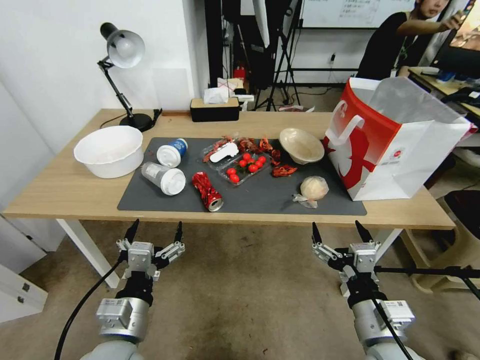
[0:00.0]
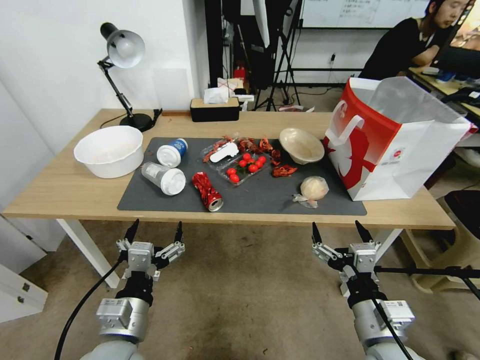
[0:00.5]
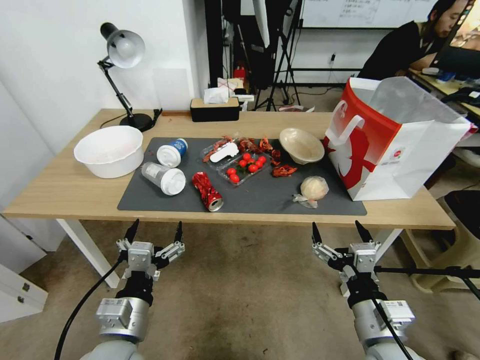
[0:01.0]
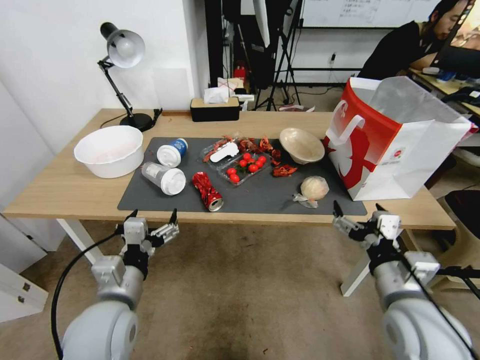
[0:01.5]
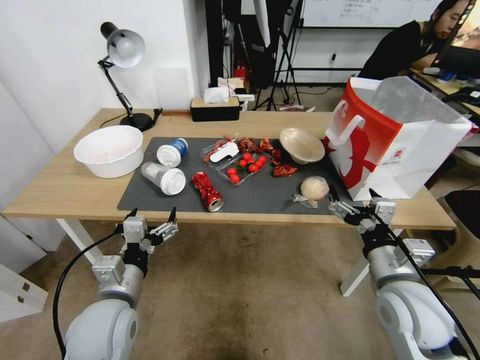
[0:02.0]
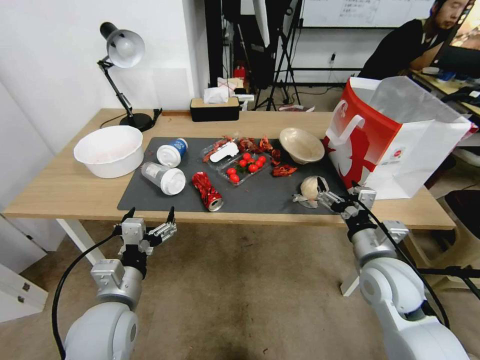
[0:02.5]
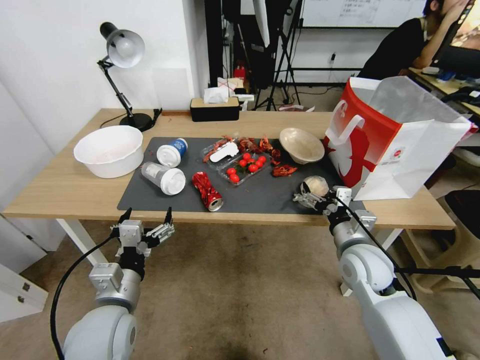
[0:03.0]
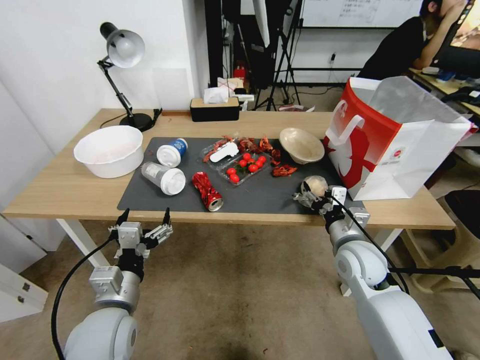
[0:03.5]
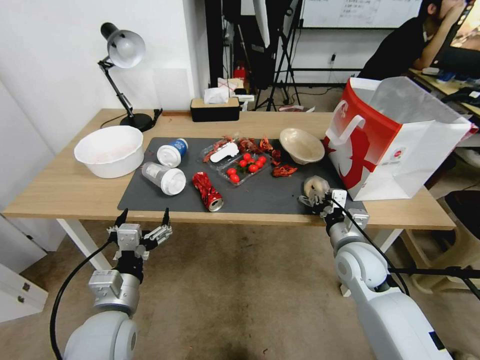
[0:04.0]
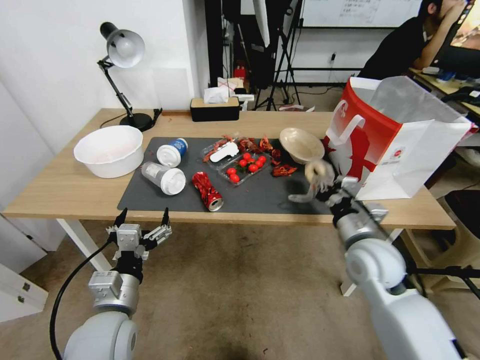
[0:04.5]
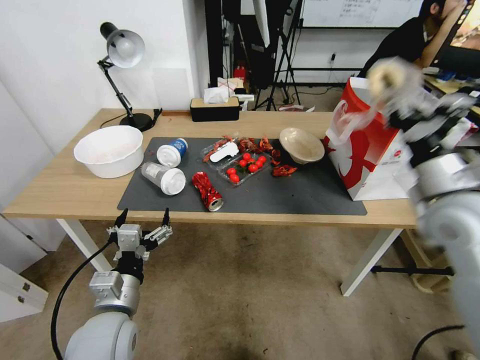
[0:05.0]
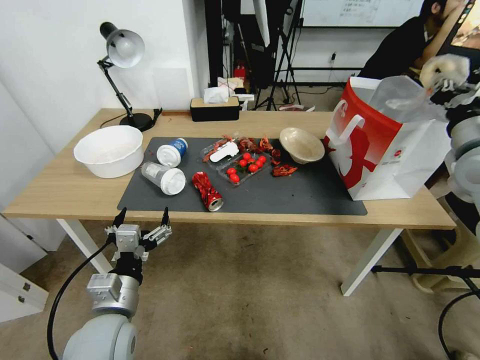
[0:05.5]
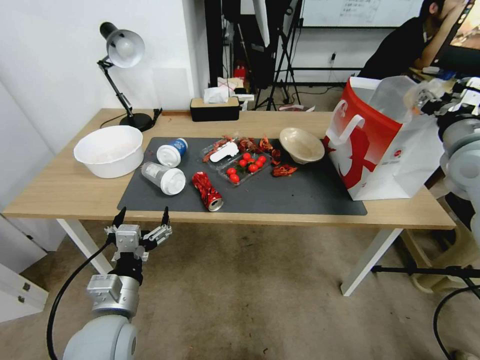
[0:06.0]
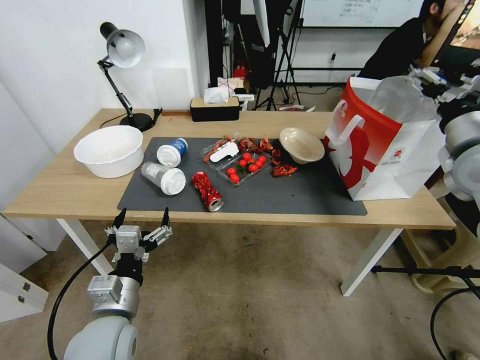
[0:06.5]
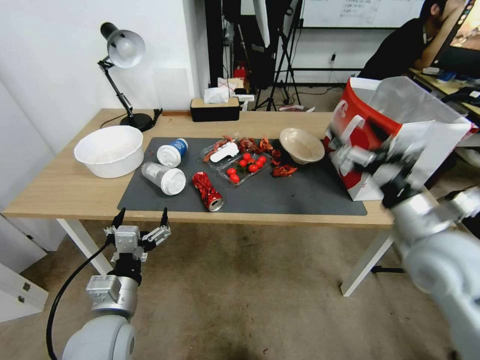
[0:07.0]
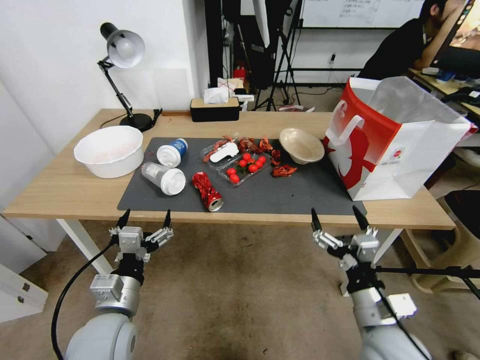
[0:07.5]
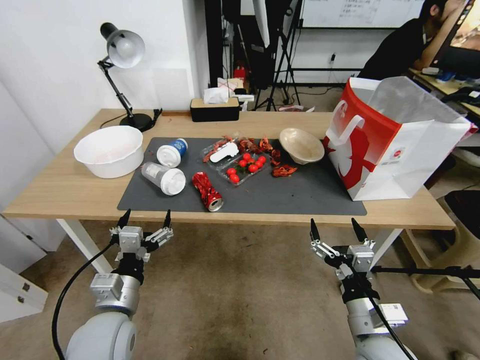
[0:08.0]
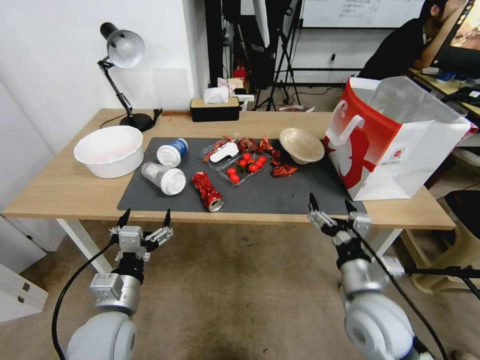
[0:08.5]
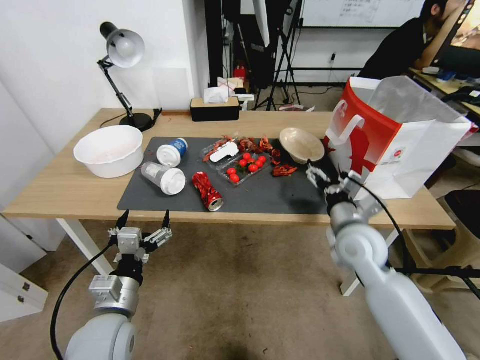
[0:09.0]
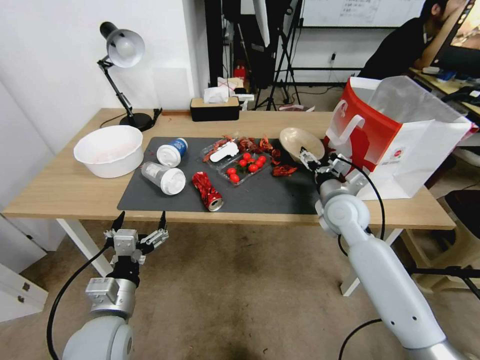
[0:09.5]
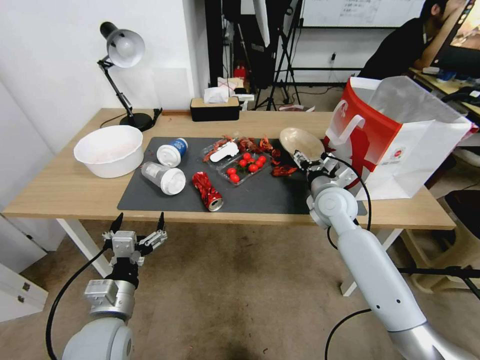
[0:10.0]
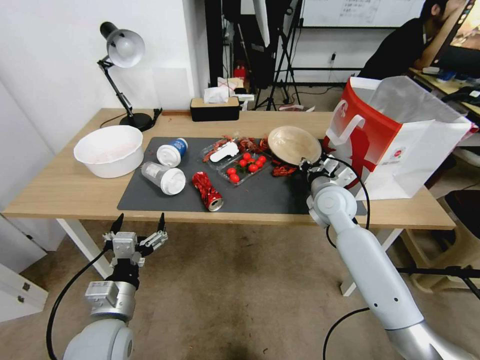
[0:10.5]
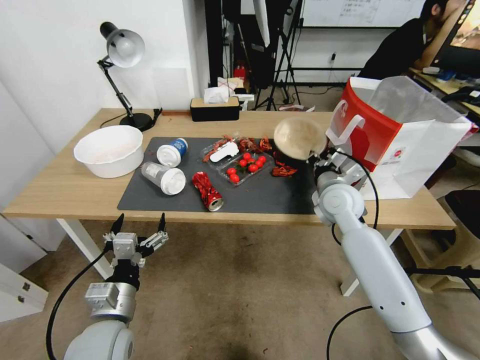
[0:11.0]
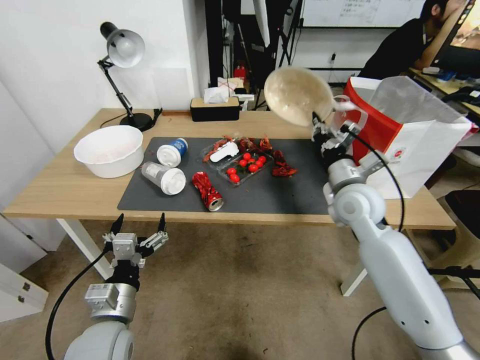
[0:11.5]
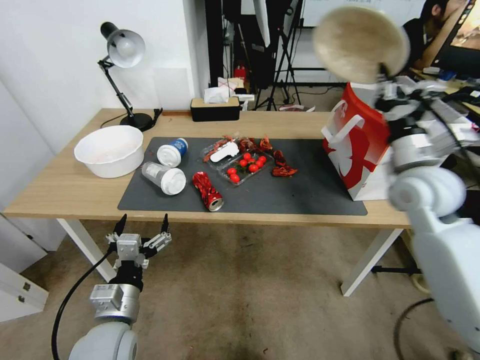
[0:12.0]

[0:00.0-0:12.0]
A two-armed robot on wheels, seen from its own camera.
0:02.0 to 0:04.0: The right gripper travels forward and downward by roughly 15 cm, and closes its fingers.
0:04.0 to 0:06.0: The right gripper shifts approximately 30 cm upward and to the right.
0:06.0 to 0:08.0: The right gripper travels downward, backward and to the left by approximately 40 cm, and opens up.
0:08.0 to 0:10.0: The right gripper moves forward, about 30 cm.
0:10.0 to 0:12.0: The right gripper heads upward, to the right and backward, covering approximately 20 cm, and closes.

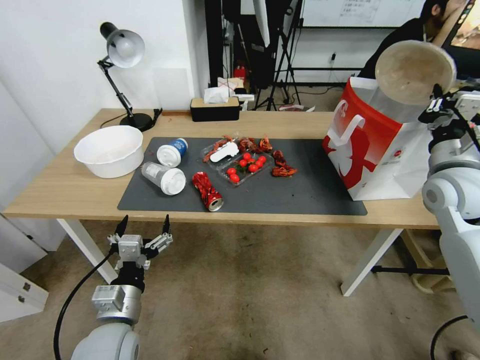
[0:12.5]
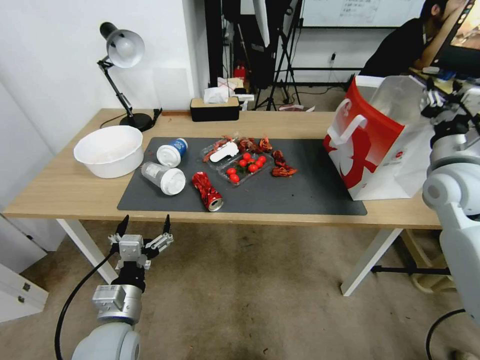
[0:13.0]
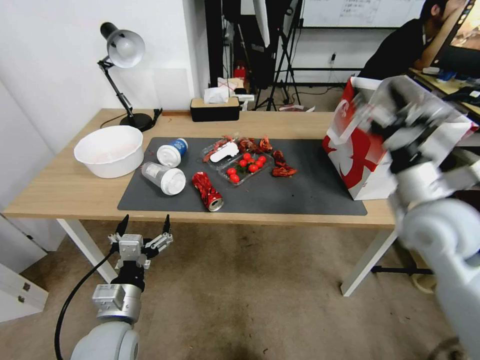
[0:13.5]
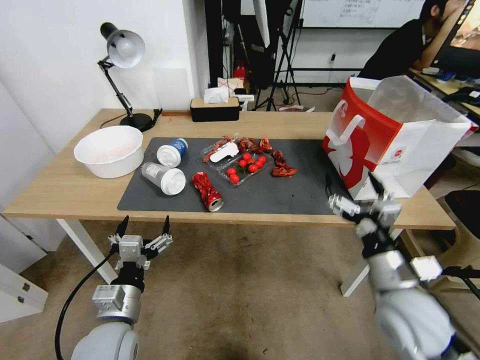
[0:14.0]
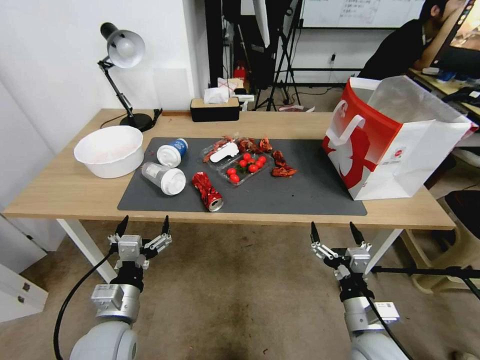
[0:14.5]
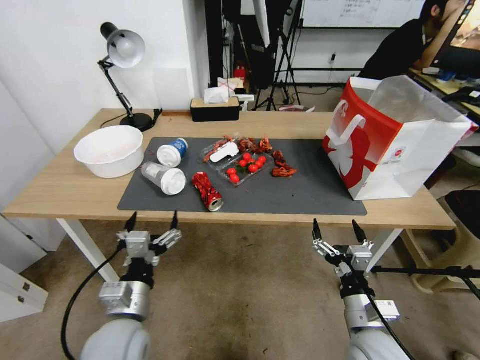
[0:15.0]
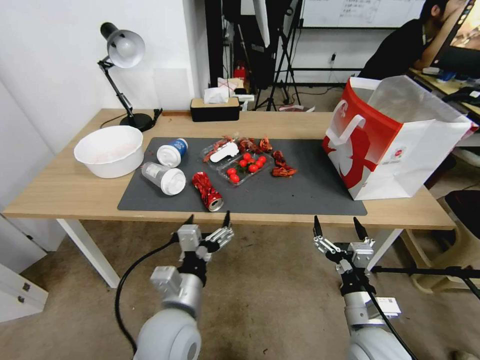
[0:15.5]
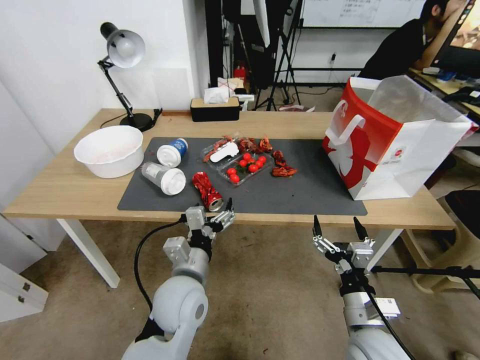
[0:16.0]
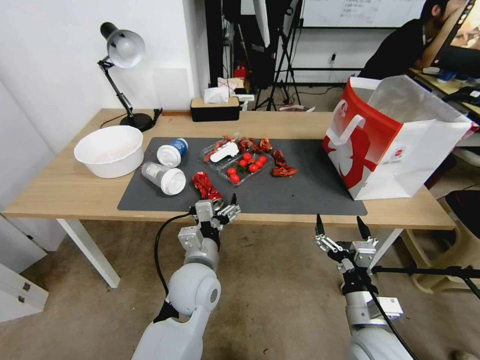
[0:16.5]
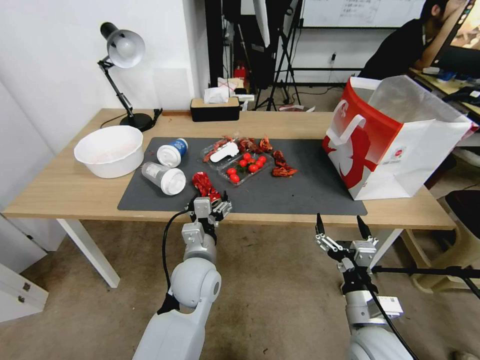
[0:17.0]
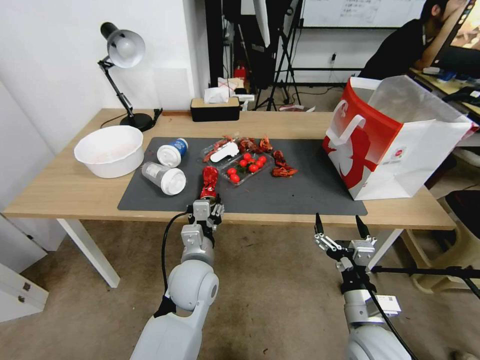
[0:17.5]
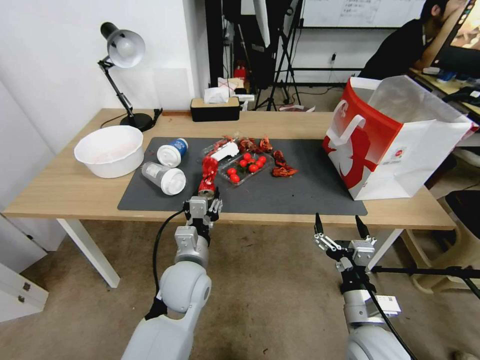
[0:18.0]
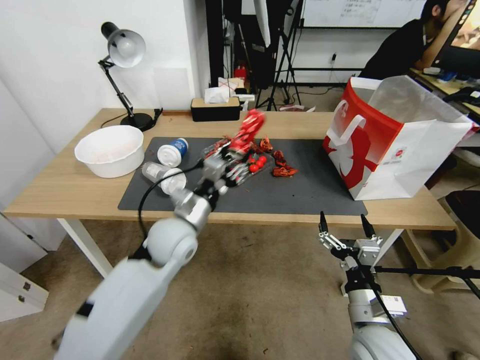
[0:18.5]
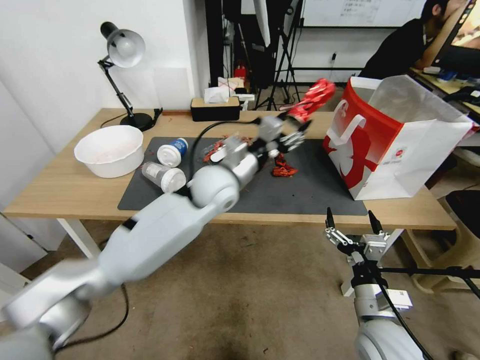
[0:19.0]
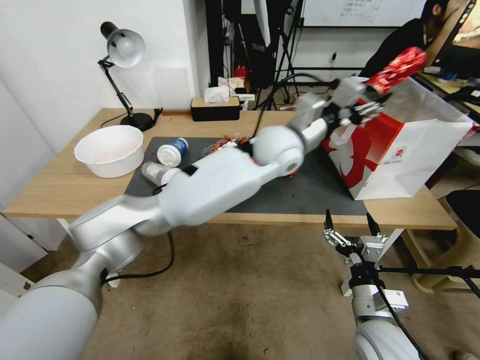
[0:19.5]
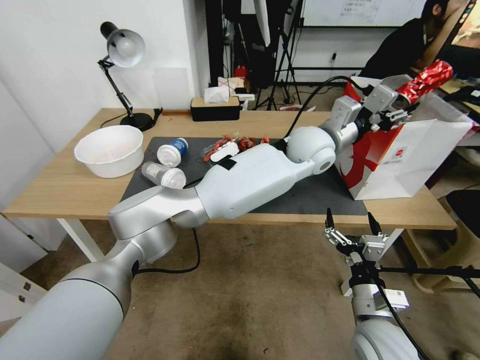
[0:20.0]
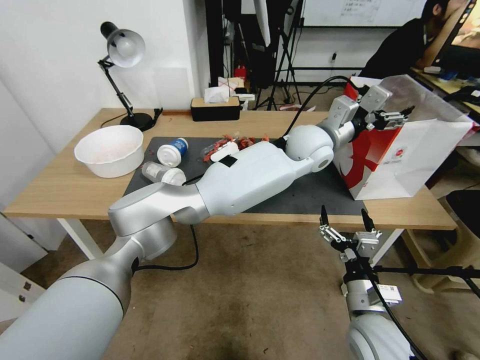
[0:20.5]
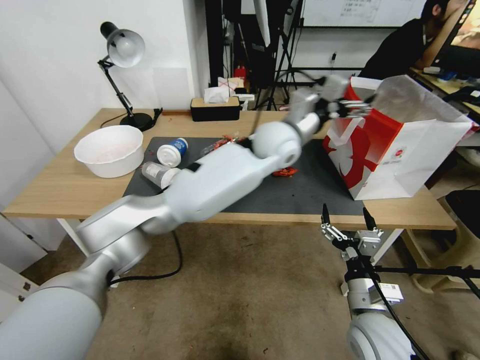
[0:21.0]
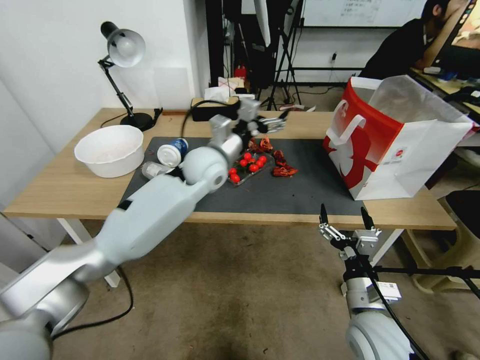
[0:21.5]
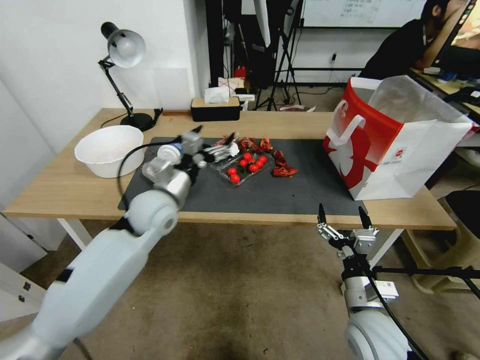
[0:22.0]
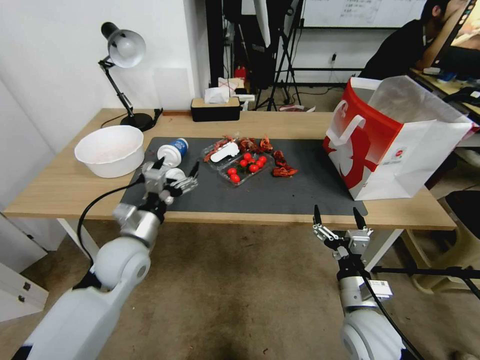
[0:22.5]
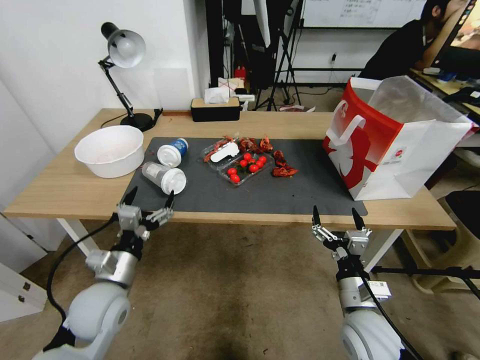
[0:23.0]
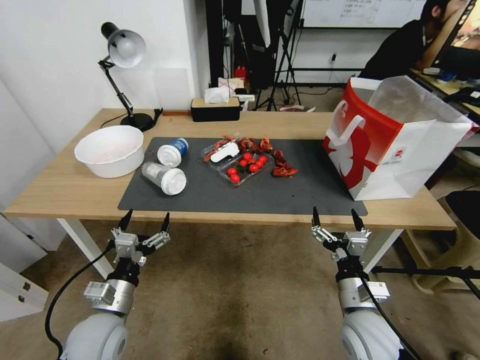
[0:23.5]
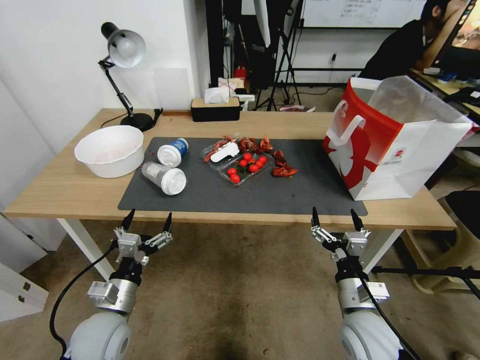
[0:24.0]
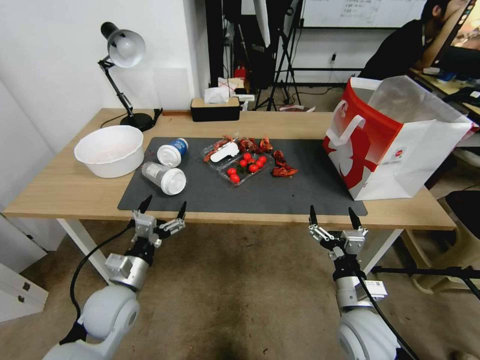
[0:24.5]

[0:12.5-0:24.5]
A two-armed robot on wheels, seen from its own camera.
0:12.5 to 0:14.5: The right gripper heads downward, backward and to the left, covering about 35 cm, and opens up.
0:14.5 to 0:16.5: The left gripper heads to the right and forward, covering some 15 cm.
0:16.5 to 0:18.5: The left gripper moves forward, about 5 cm, and closes up.
0:18.5 to 0:20.5: The left gripper moves to the right, forward and upward, about 35 cm.
0:20.5 to 0:22.5: The left gripper shifts some 50 cm to the left, backward and downward.
0:22.5 to 0:24.5: The left gripper is displaced downward and backward by roughly 10 cm.

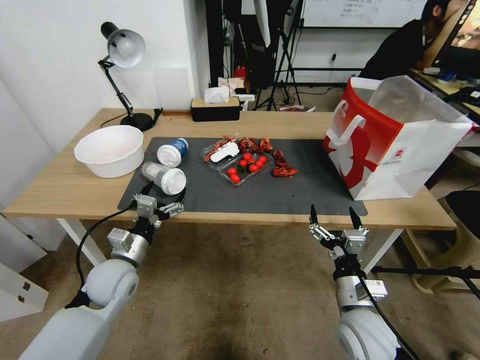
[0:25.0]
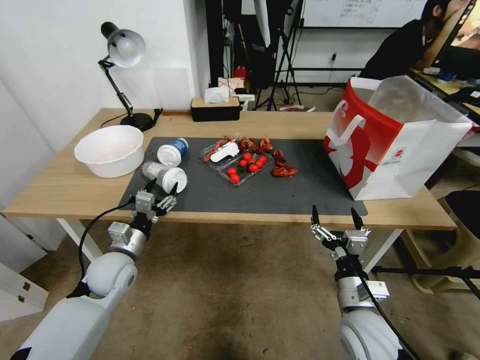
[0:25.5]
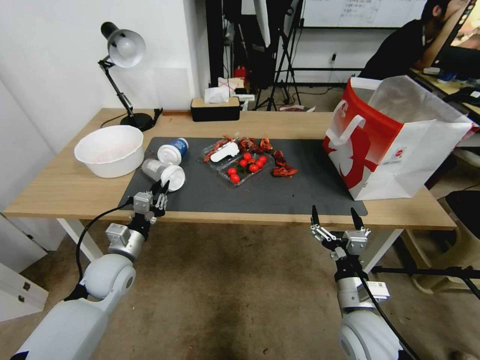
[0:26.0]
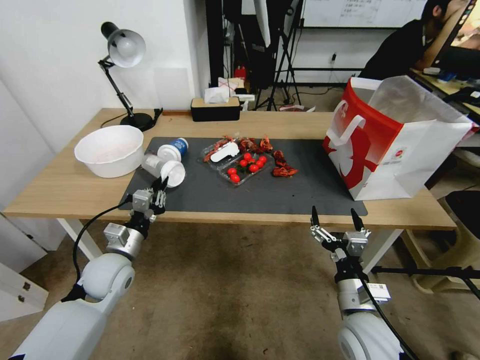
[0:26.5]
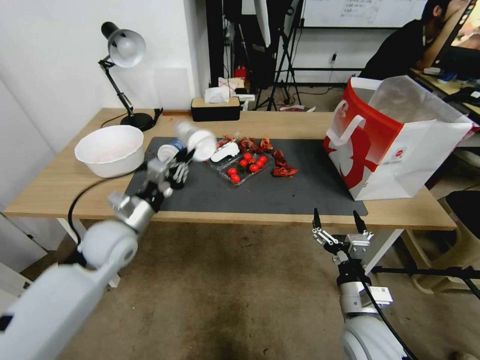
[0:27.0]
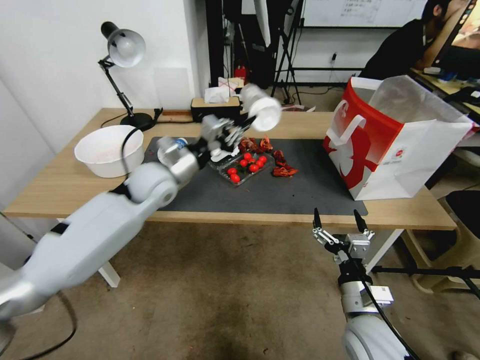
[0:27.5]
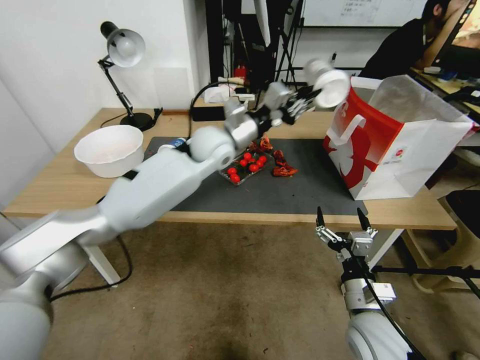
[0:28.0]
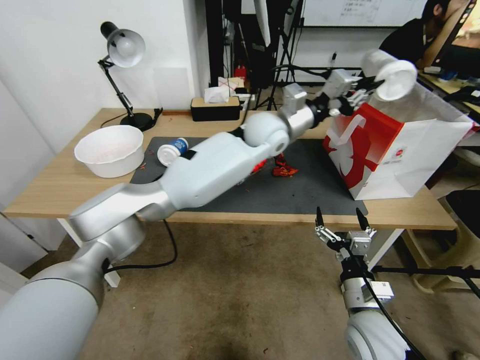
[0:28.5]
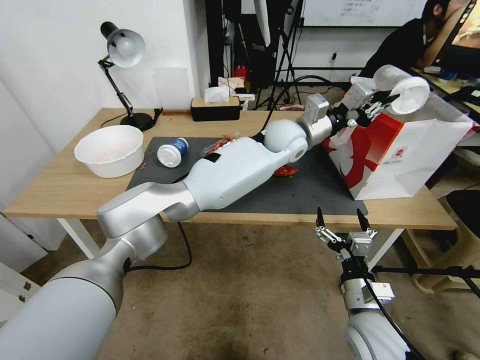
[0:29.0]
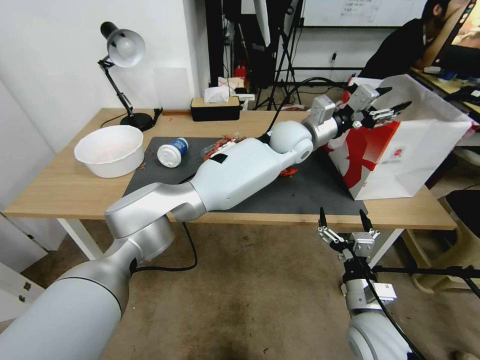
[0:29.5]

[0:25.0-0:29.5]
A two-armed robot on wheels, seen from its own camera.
0:25.0 to 0:27.0: The left gripper travels upward by roughly 5 cm, and closes up.
0:27.0 to 0:29.5: The left gripper moves to the right and forward, approximately 40 cm, and opens its fingers.
